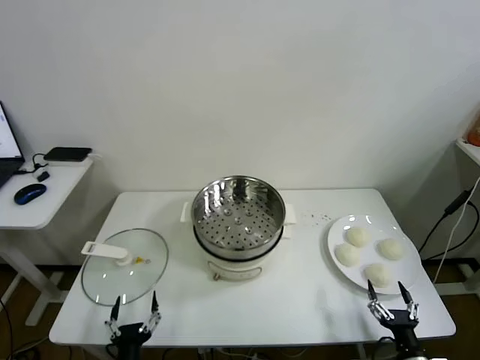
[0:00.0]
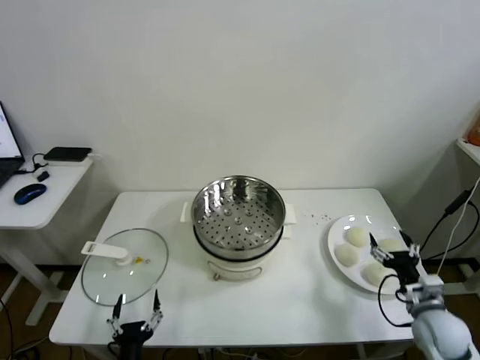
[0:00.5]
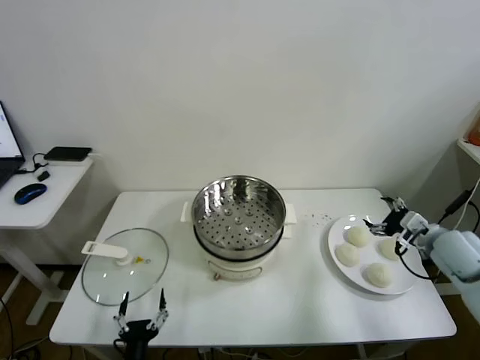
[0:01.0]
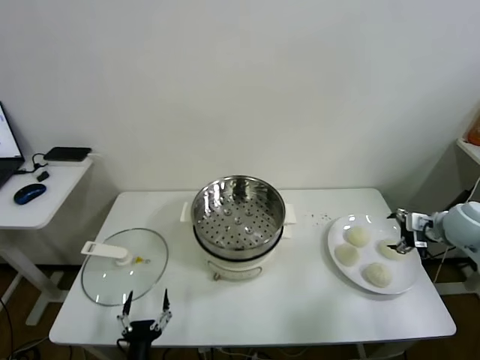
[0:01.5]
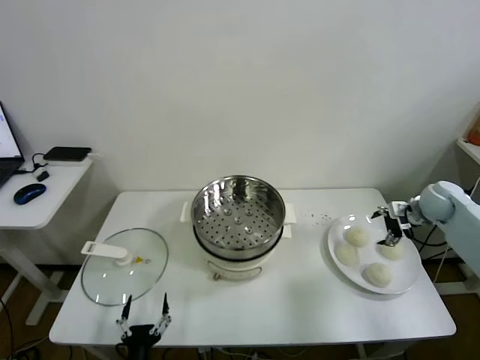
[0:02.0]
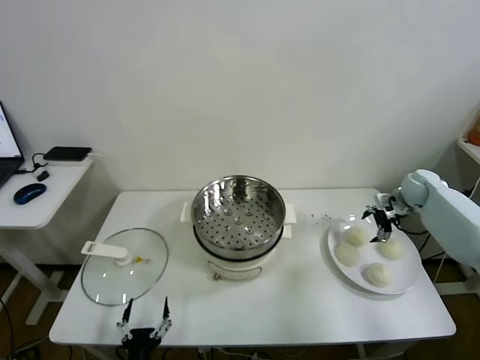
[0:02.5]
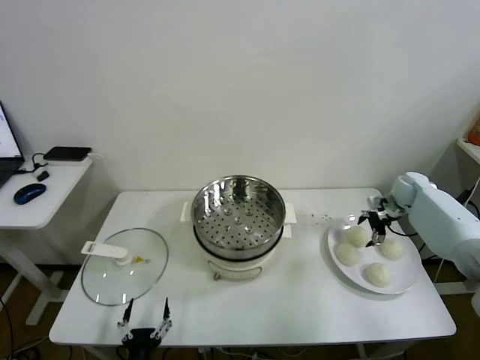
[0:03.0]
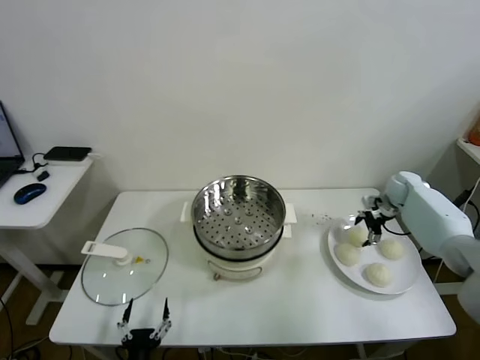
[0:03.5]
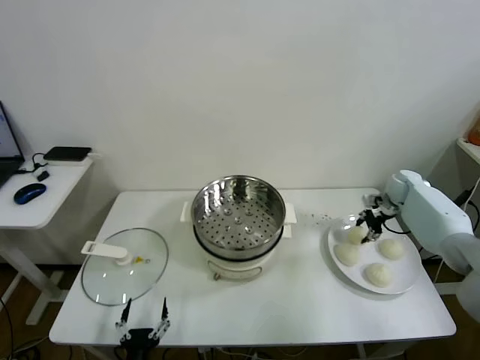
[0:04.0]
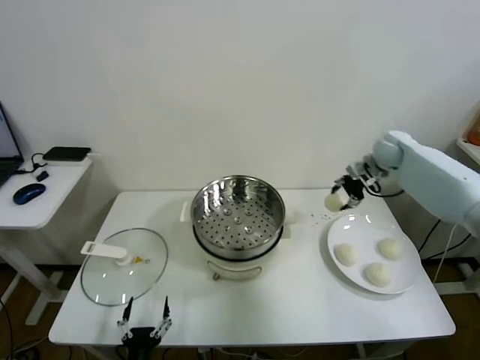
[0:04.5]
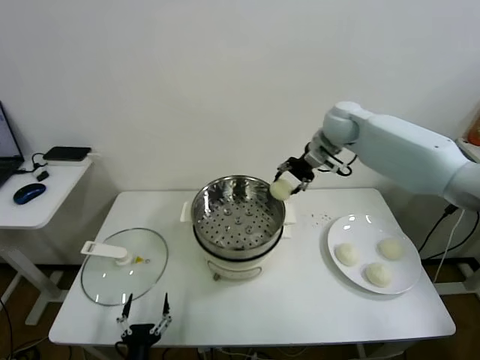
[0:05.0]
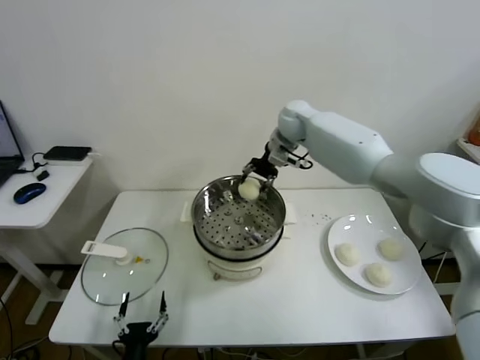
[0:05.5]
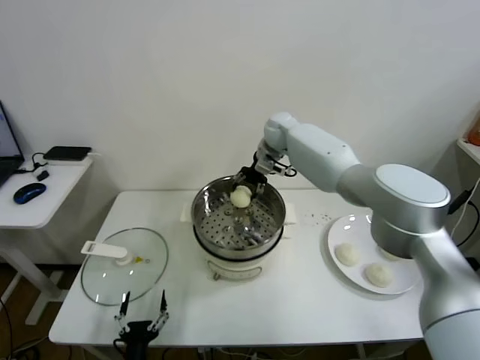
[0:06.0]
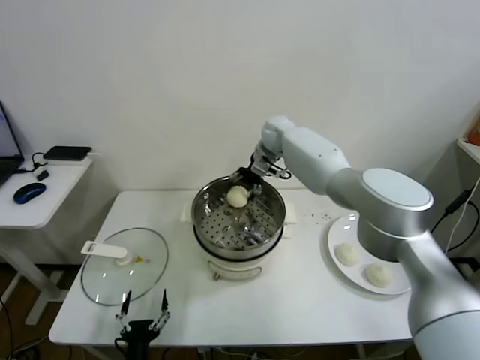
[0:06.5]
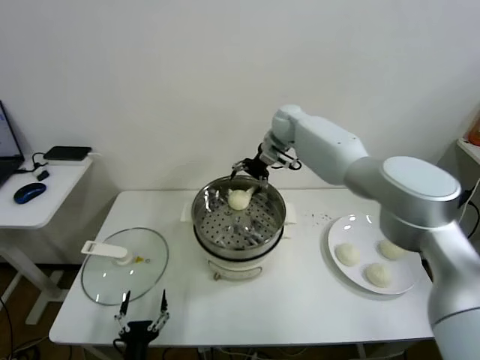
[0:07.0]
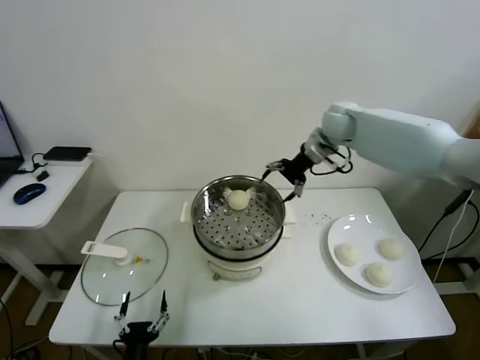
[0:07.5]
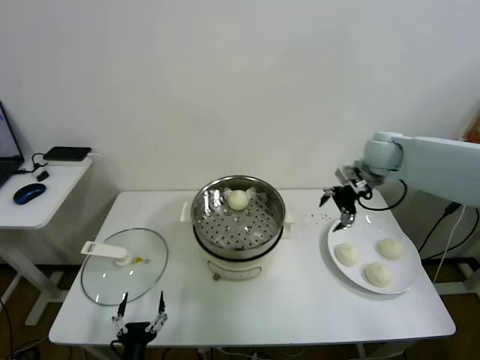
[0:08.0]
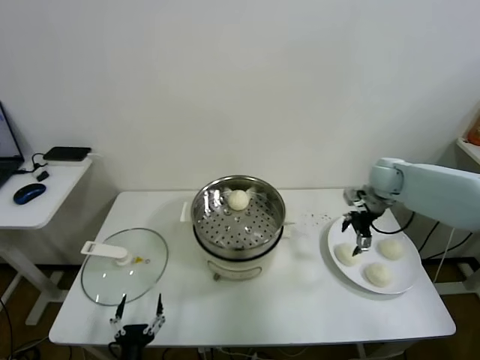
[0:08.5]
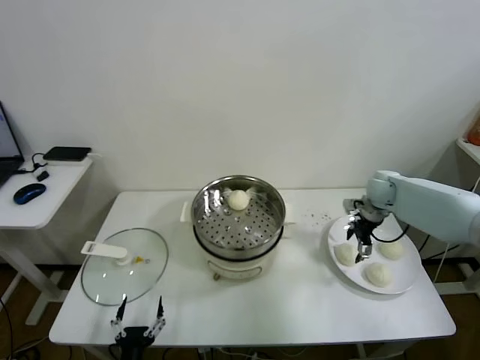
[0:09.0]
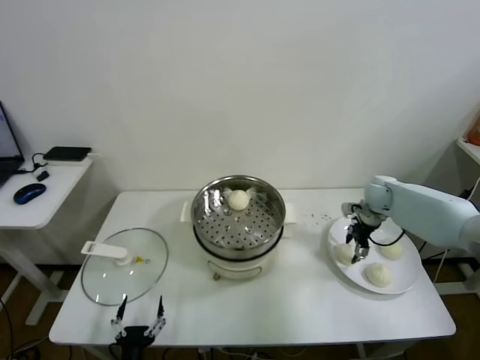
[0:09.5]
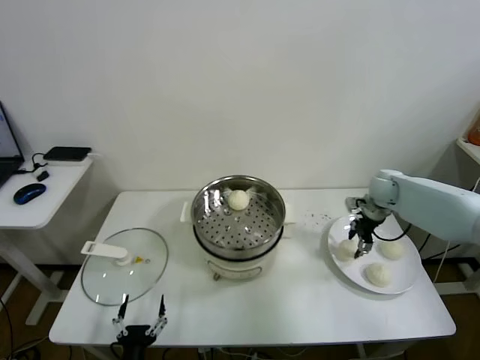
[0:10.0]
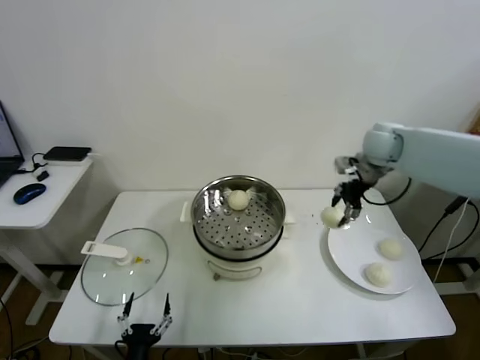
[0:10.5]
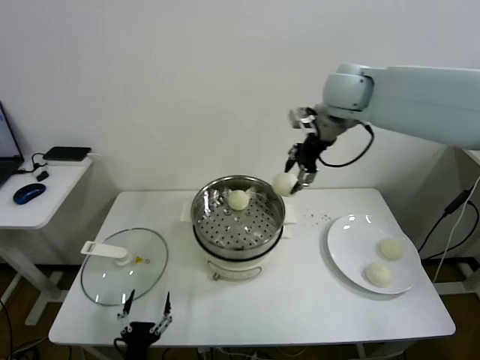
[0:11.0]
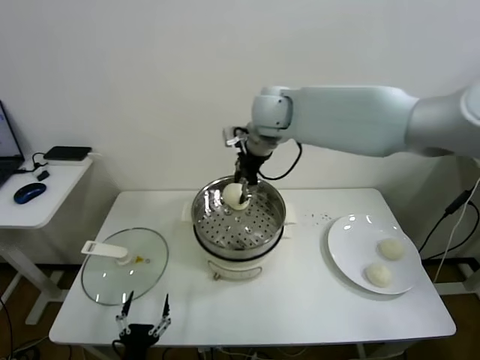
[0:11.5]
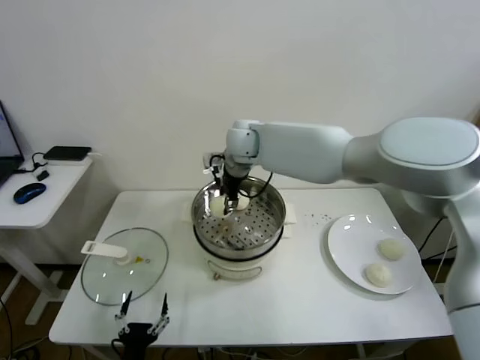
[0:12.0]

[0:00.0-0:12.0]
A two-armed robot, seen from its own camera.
Task of the whole recording: take steamed baozi put them in steamer.
Step, 0:00.0 to 0:03.5: Grasp the baozi in the plate with right gripper.
Step, 0:04.0 to 0:06.5: Place the baozi on the steamer with right gripper.
Step, 0:07.0 to 0:09.5: Grasp the baozi in the plate with right gripper.
0:02.0 to 0:04.0: The right gripper heads forward, covering about 5 cm, and closes its fingers.
0:04.0 to 0:06.0: The right gripper goes approximately 35 cm to the left.
0:06.0 to 0:08.0: The right gripper heads to the right and backward, covering roughly 25 cm, and opens up.
0:08.0 to 0:10.0: The right gripper goes approximately 10 cm downward, and closes.
0:10.0 to 0:12.0: The right gripper travels to the left by approximately 40 cm.

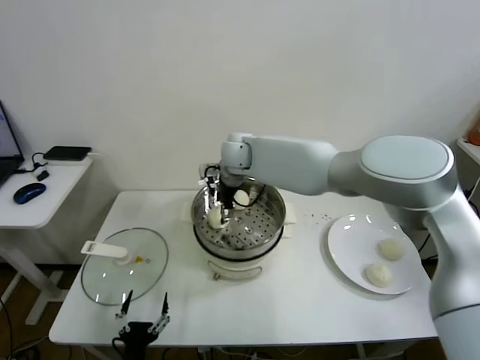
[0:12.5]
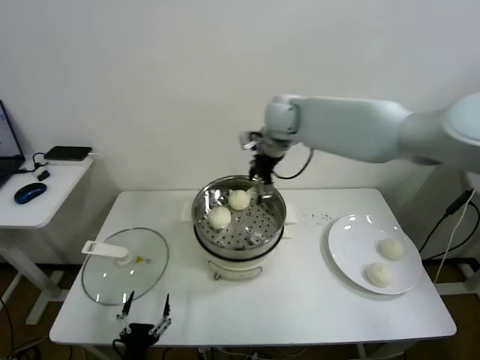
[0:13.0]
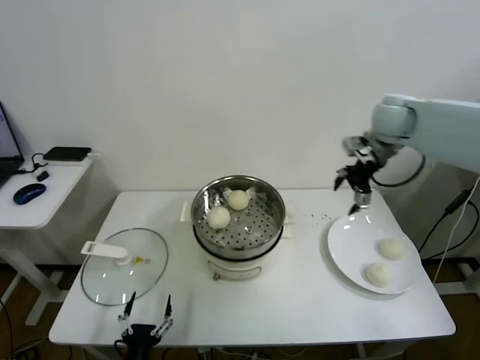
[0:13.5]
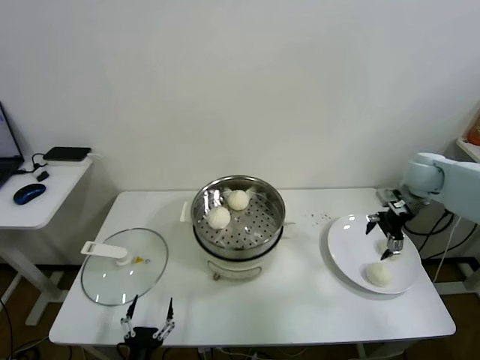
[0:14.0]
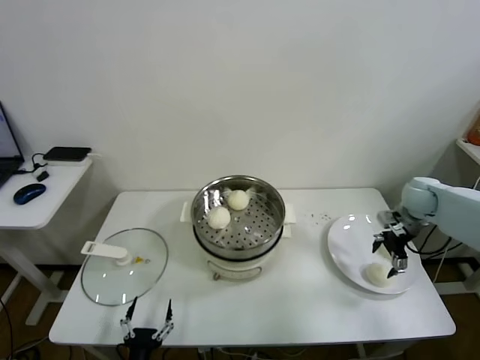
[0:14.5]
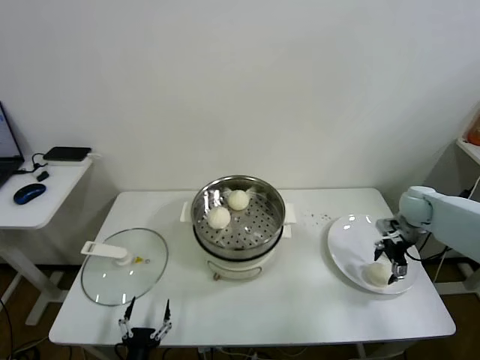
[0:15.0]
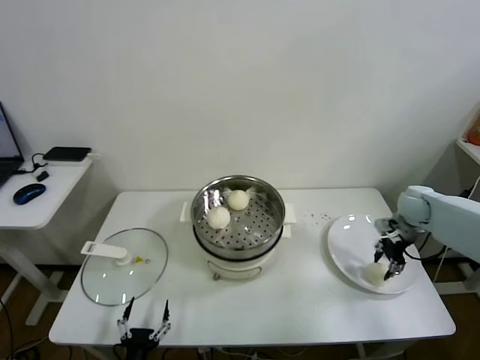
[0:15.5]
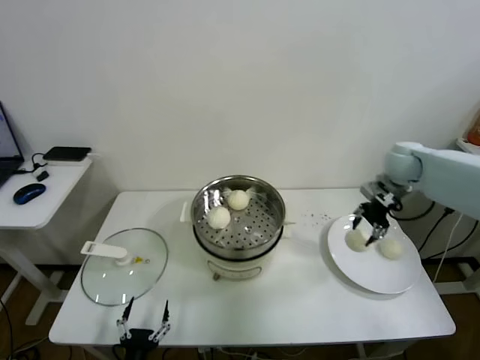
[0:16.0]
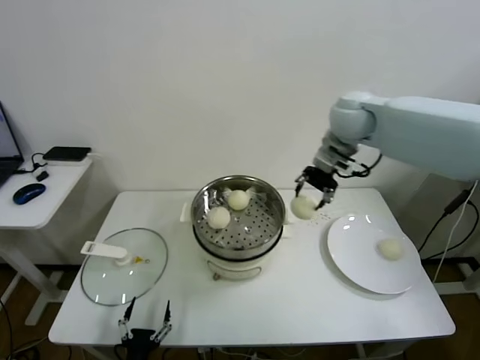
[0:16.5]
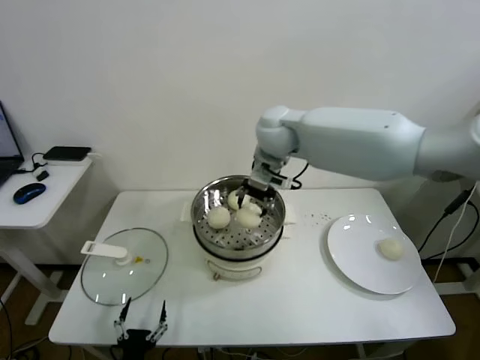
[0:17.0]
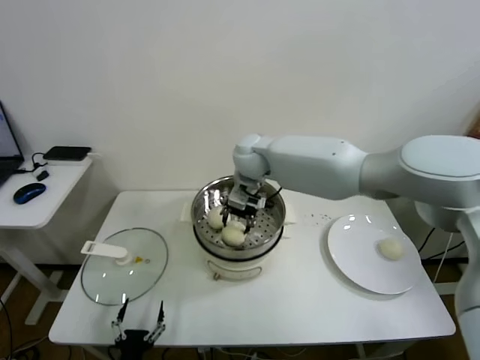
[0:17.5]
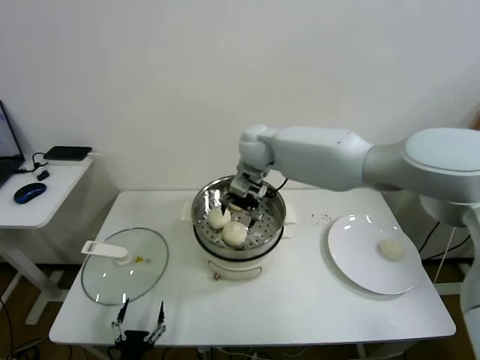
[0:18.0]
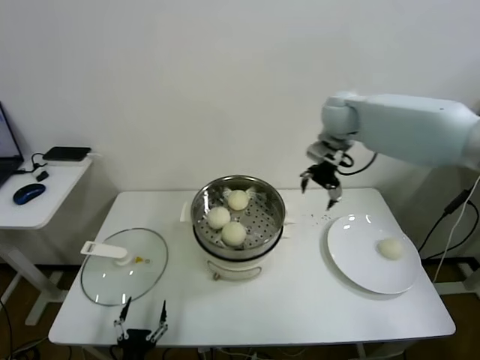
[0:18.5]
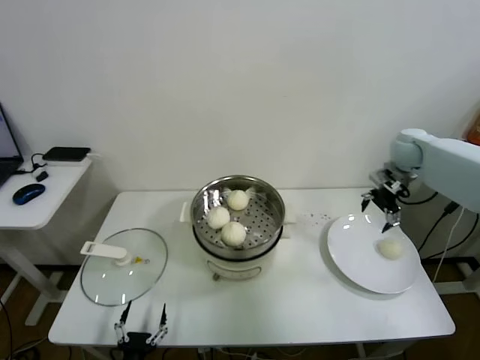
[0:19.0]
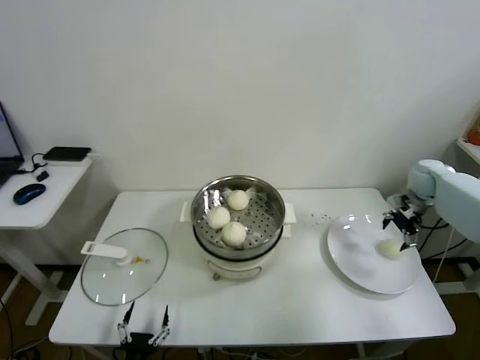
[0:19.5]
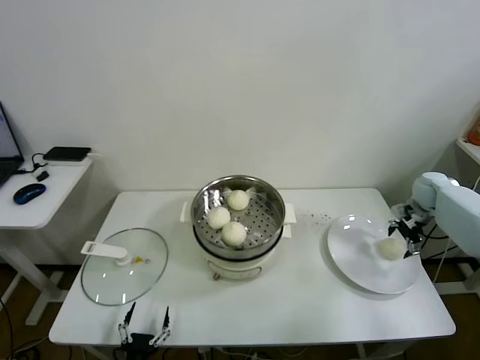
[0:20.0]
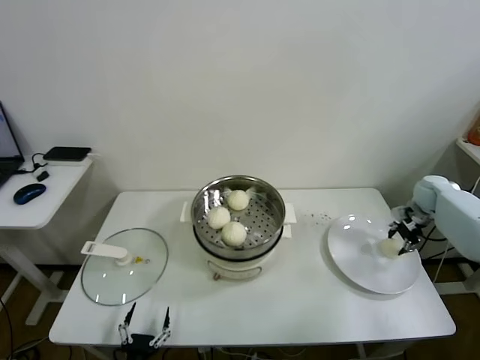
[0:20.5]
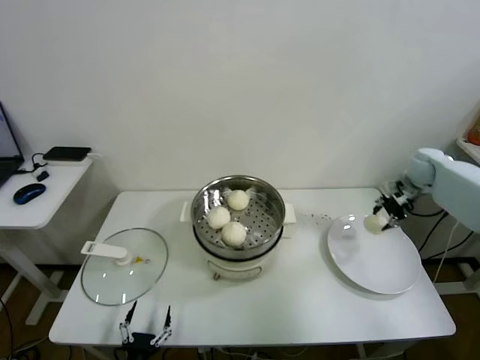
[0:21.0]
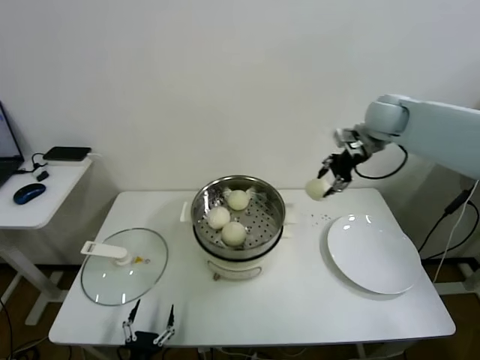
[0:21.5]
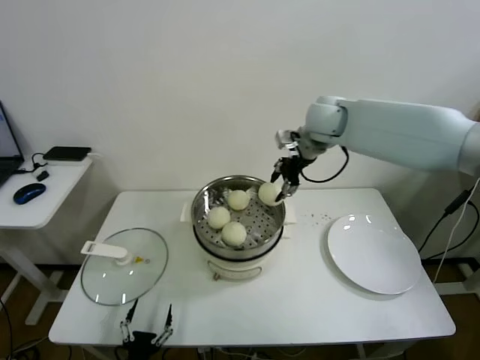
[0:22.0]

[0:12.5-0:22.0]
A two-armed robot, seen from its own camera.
Task of the whole recording: take steamed baozi put them in steamer.
Step, 0:13.0 to 0:15.5: Grasp the baozi in the plate with right gripper.
Step, 0:16.0 to 0:17.5: Place the baozi on the steamer with right gripper.
Step, 0:18.0 to 0:20.5: Grasp the baozi in the plate with right gripper.
0:12.5 to 0:14.5: The right gripper is displaced to the right by some 50 cm.
0:14.5 to 0:16.5: The right gripper is displaced to the left and upward by roughly 30 cm, and closes.
0:16.5 to 0:18.0: The right gripper travels to the left and downward by some 20 cm, and opens up.
0:18.0 to 0:20.0: The right gripper goes some 50 cm to the right.
0:20.0 to 0:22.0: The right gripper goes some 40 cm to the left and upward, and closes its fingers.

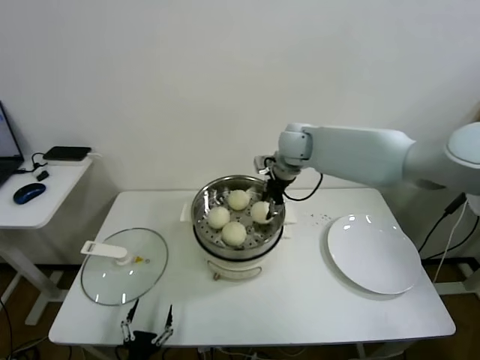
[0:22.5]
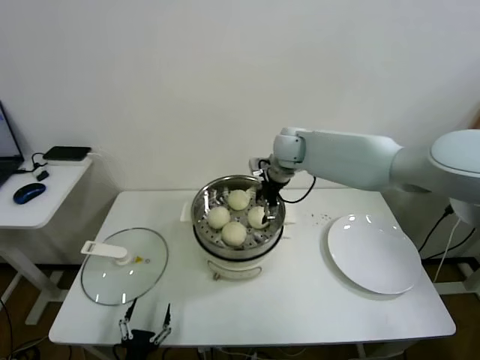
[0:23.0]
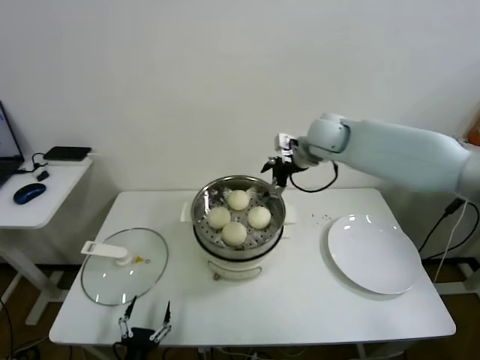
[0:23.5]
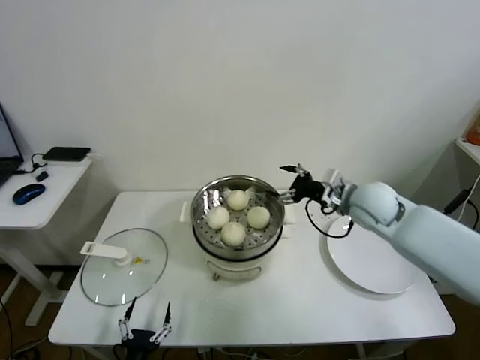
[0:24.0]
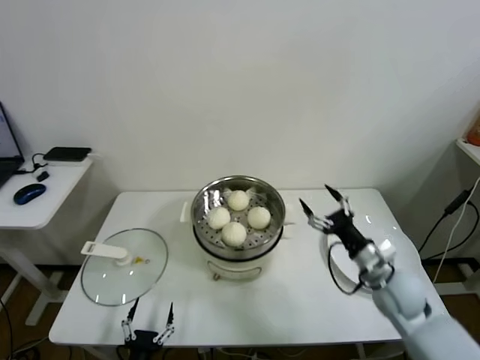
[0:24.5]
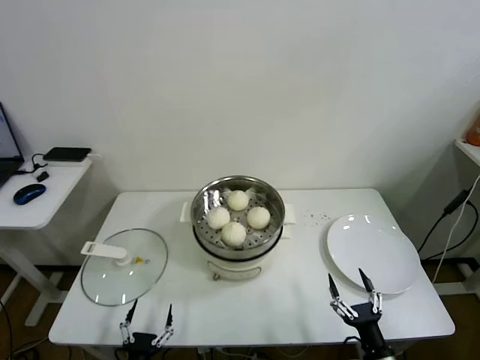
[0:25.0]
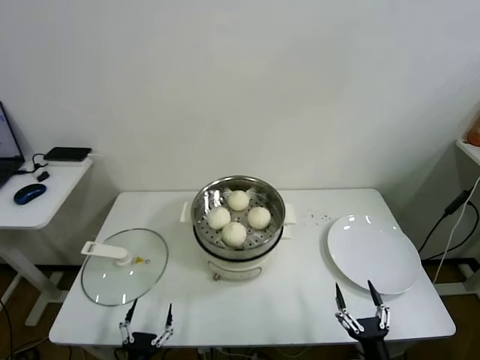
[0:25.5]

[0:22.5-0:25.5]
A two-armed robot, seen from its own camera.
Task of the whole recording: take steamed baozi put them in steamer.
0:22.5 to 0:24.0: The right gripper travels to the right, backward and downward by approximately 20 cm, and opens its fingers.
0:24.0 to 0:25.5: The right gripper goes roughly 50 cm backward and downward.
